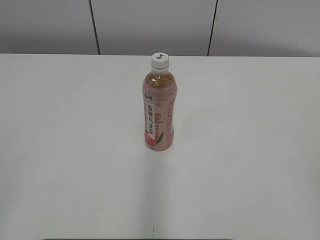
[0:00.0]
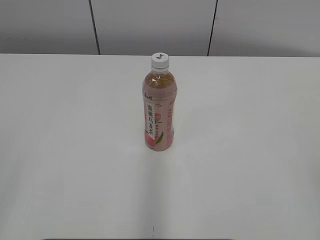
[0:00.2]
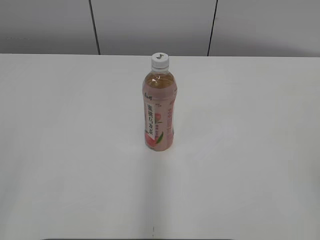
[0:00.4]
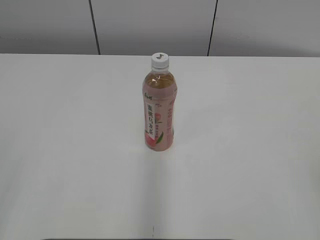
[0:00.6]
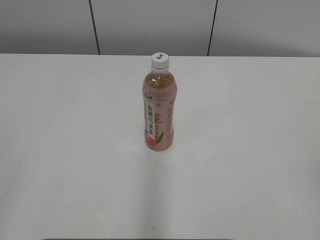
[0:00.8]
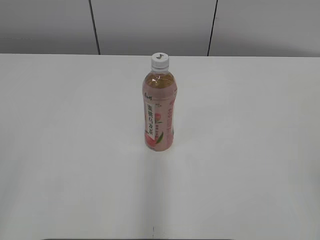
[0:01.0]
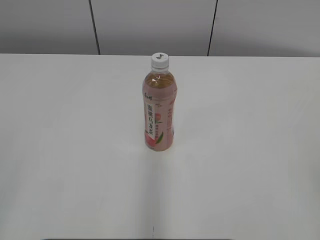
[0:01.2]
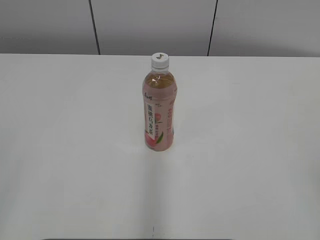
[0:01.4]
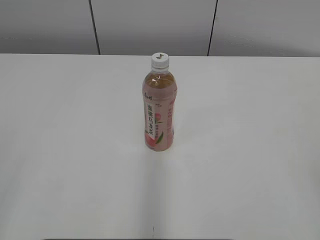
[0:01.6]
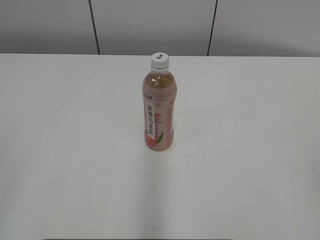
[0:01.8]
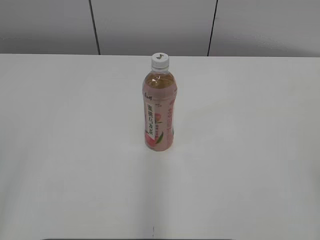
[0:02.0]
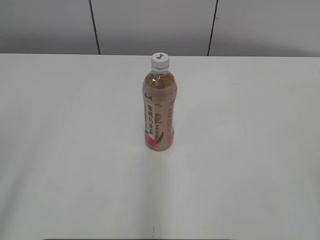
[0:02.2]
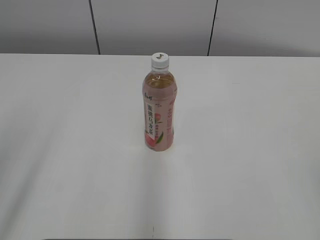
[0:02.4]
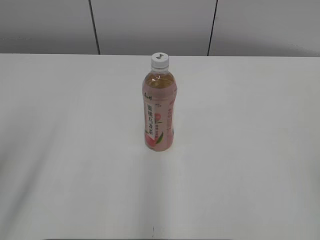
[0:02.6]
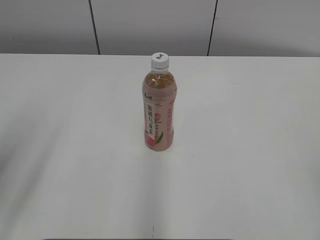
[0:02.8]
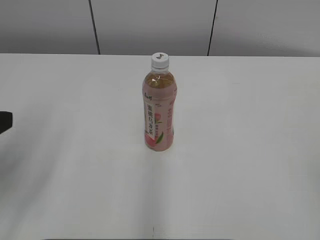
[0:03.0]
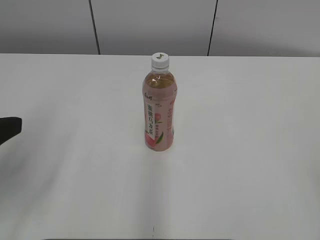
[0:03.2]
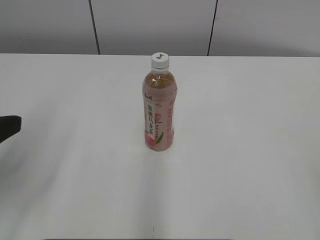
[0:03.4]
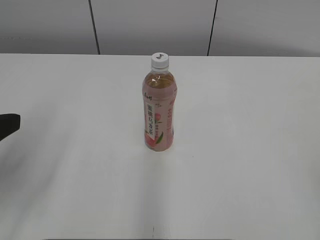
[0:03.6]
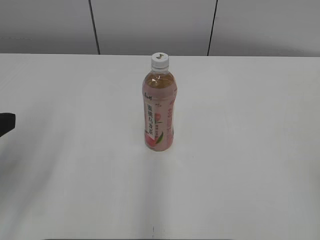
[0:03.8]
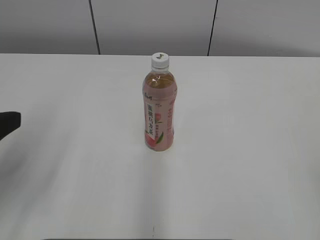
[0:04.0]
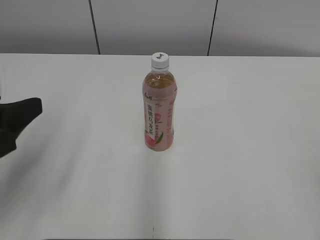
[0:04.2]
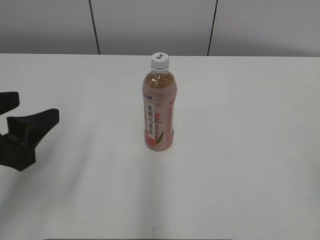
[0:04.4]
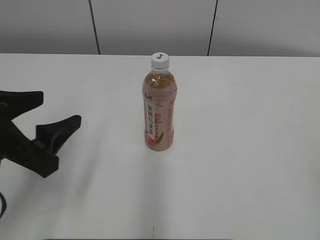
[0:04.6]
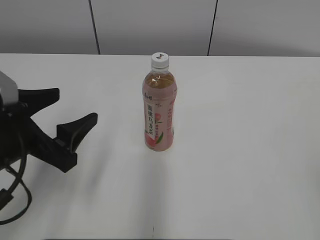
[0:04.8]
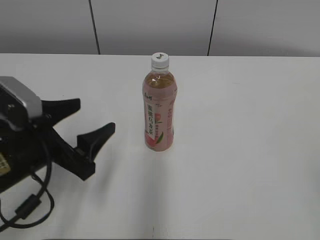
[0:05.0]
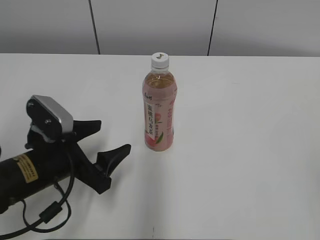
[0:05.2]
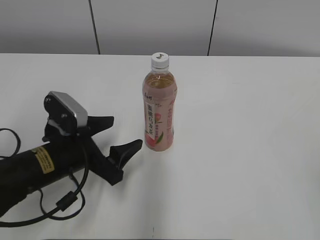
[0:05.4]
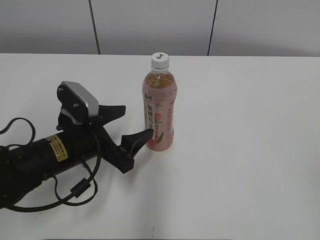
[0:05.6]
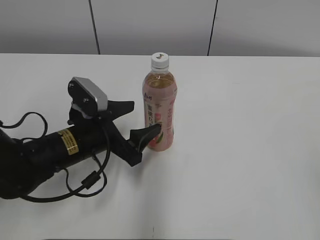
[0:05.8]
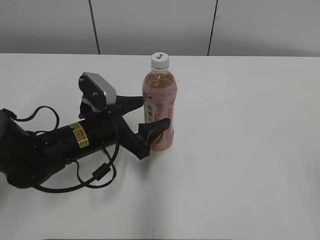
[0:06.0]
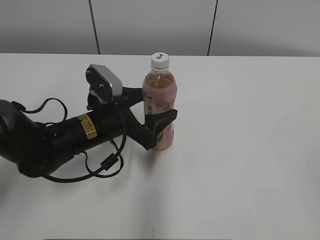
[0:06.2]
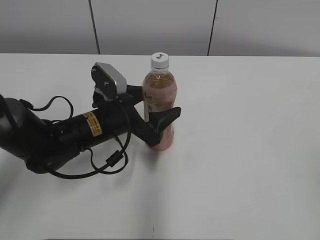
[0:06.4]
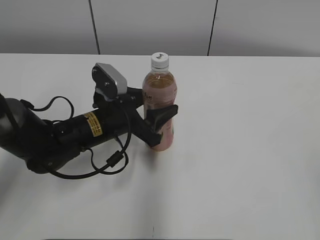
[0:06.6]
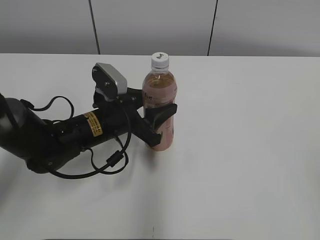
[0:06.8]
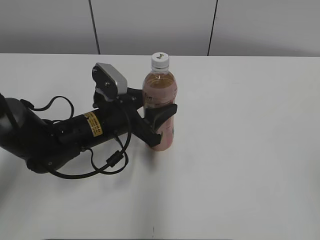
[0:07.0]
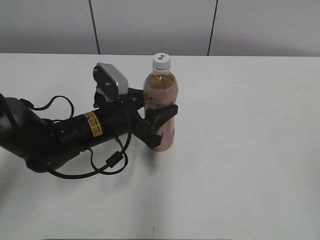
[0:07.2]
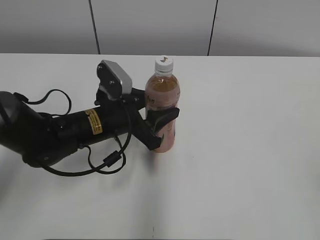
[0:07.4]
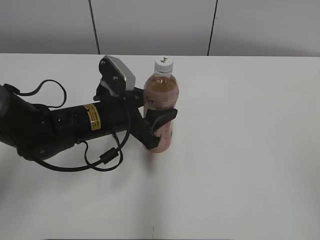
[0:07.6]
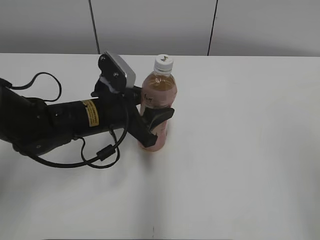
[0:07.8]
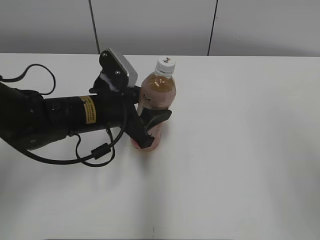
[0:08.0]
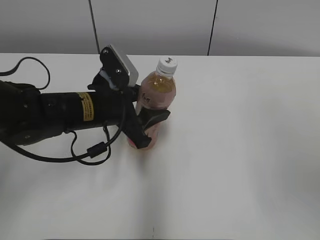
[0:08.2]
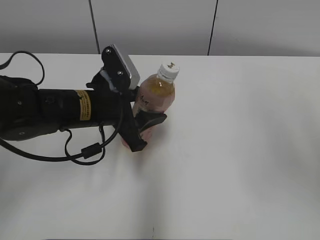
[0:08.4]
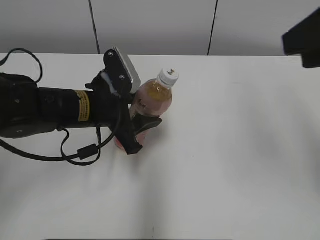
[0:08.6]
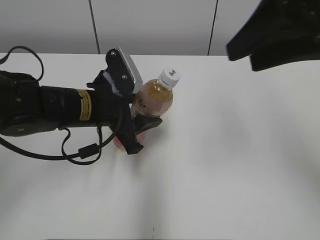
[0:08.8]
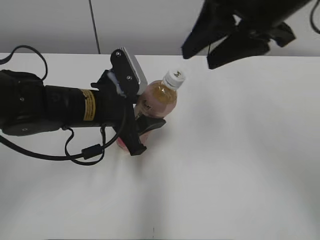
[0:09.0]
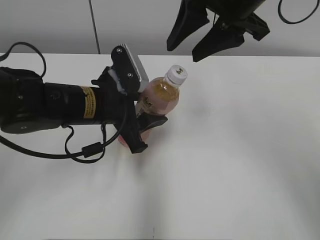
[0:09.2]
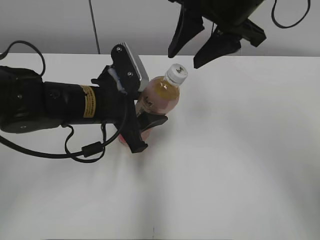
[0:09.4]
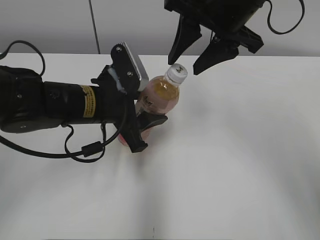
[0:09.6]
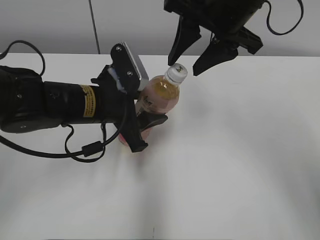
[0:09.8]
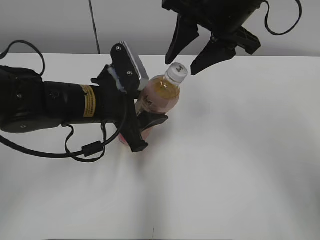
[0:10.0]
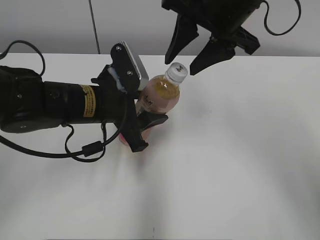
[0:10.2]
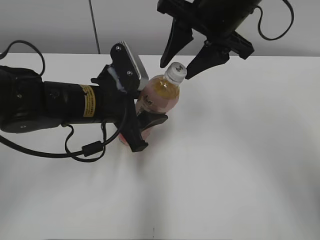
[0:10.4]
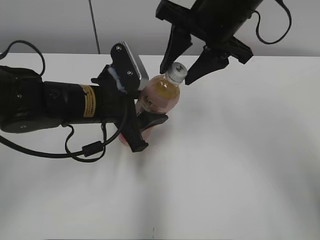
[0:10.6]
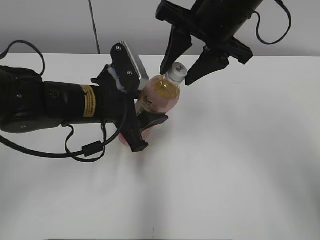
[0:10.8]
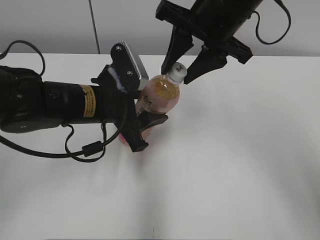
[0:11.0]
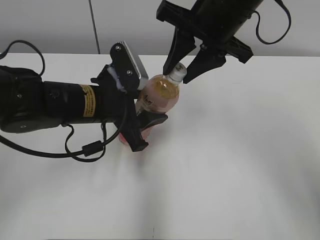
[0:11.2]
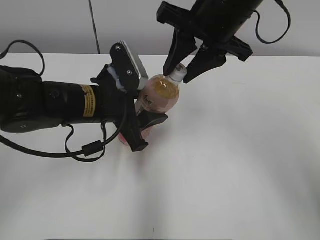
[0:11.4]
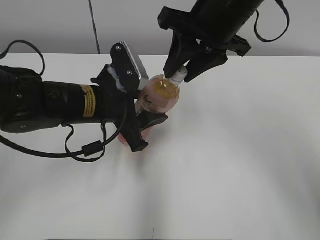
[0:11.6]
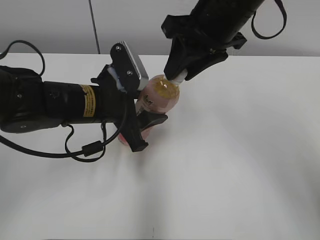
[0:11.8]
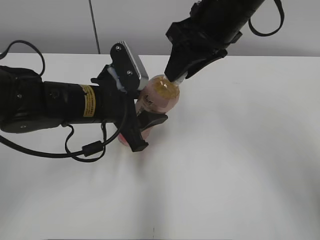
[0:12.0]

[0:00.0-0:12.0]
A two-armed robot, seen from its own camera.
Step, 0:00.0 to 0:06.8: Grasp the bottle and move it to the center of the table with the left gripper.
Step, 0:07.0 to 0:08.8: Lift the bottle and move it to the center of the table with the left gripper.
0:01.6 to 0:03.0: The left gripper travels forward by some 15 cm.
0:03.0 to 0:04.4: The left gripper moves about 5 cm.
0:04.4 to 0:06.0: The left gripper travels forward, downward and to the right by about 20 cm.
0:06.0 to 0:07.6: The left gripper closes up.
0:07.6 to 0:09.0: The right gripper goes roughly 30 cm forward and to the left.
0:09.0 to 0:10.4: The right gripper is displaced forward by roughly 5 cm.

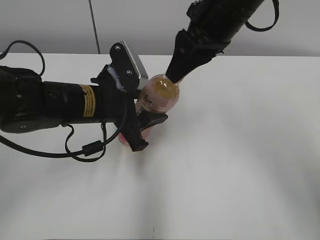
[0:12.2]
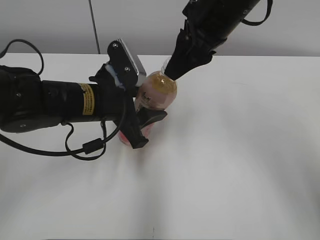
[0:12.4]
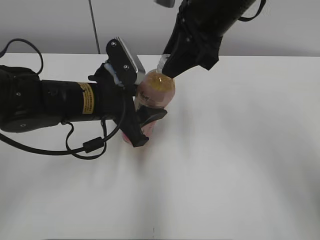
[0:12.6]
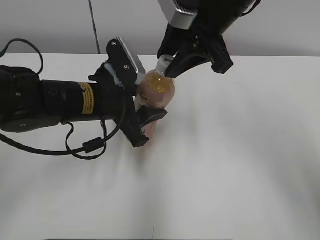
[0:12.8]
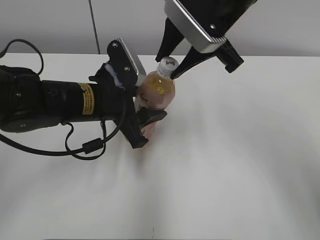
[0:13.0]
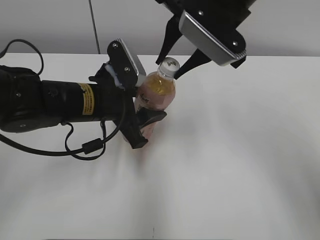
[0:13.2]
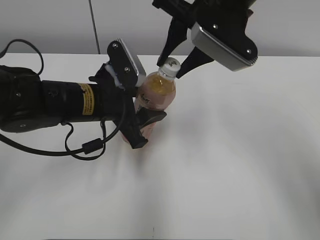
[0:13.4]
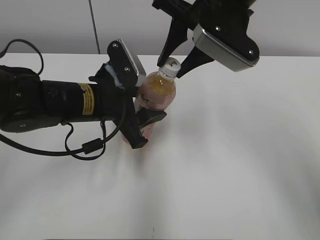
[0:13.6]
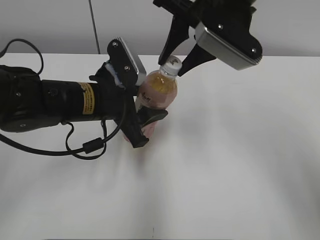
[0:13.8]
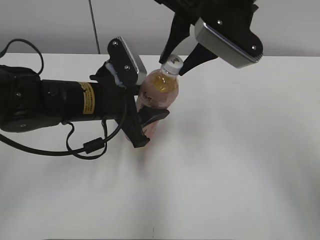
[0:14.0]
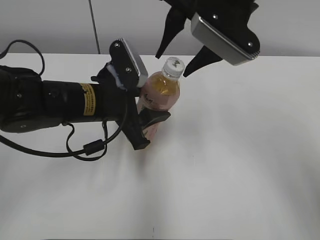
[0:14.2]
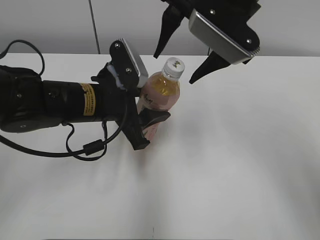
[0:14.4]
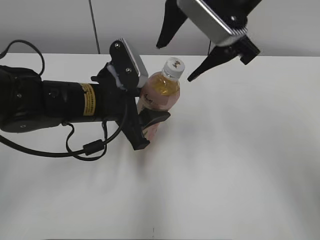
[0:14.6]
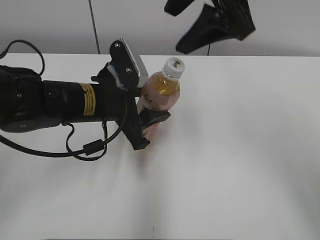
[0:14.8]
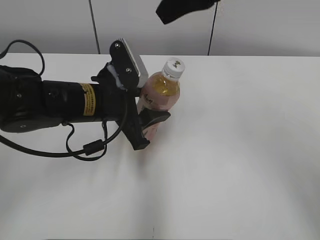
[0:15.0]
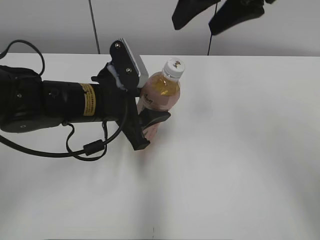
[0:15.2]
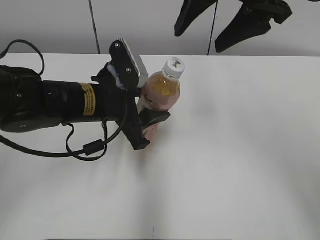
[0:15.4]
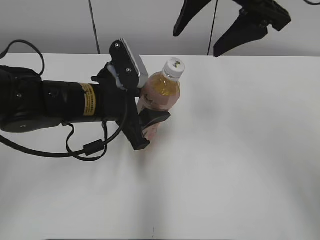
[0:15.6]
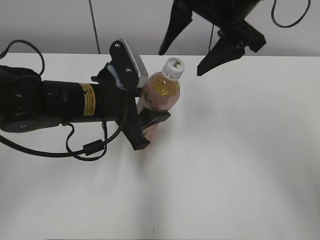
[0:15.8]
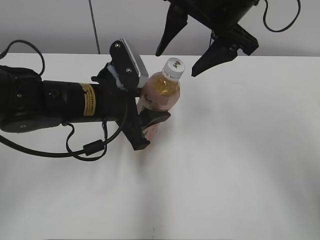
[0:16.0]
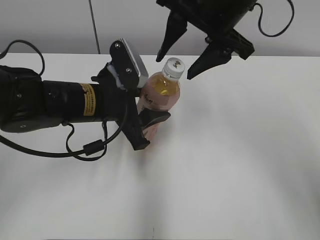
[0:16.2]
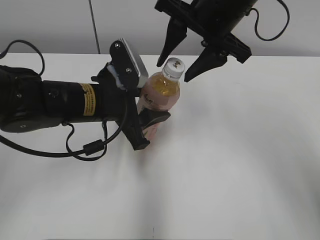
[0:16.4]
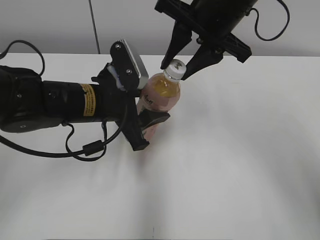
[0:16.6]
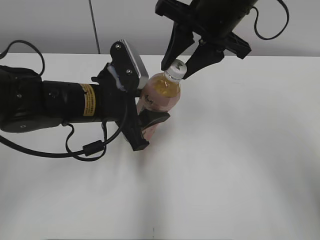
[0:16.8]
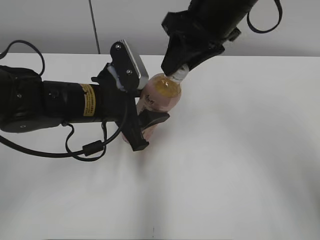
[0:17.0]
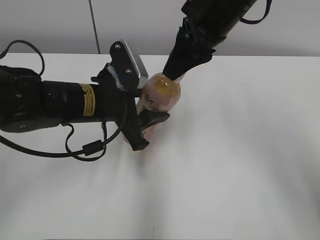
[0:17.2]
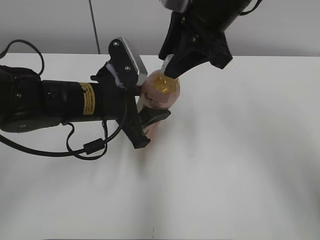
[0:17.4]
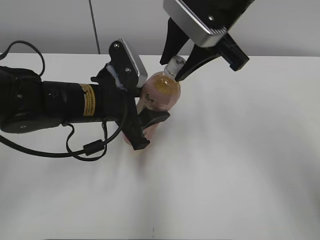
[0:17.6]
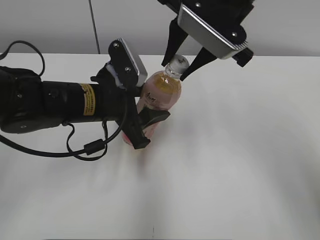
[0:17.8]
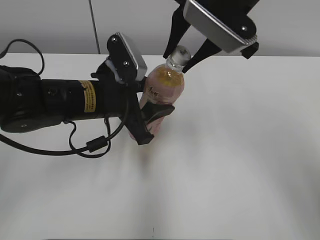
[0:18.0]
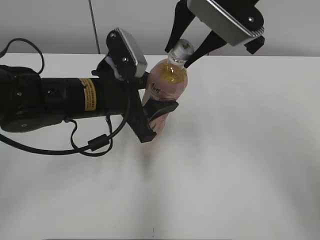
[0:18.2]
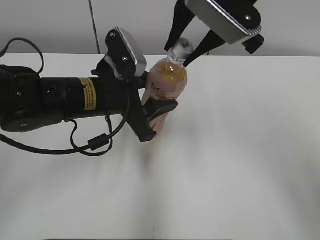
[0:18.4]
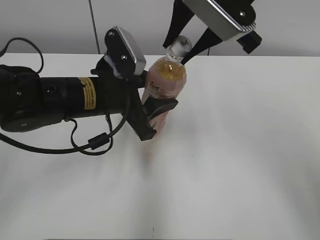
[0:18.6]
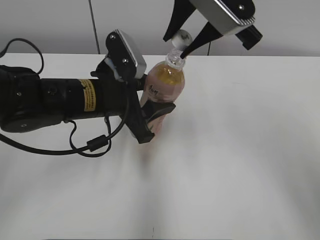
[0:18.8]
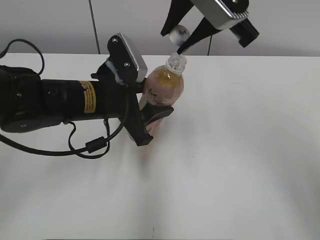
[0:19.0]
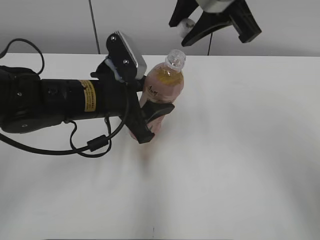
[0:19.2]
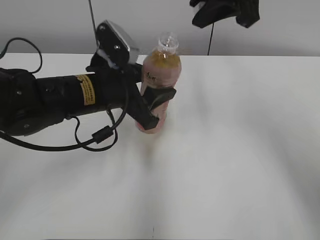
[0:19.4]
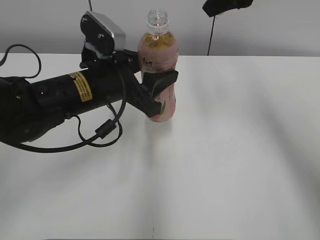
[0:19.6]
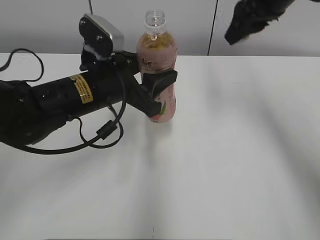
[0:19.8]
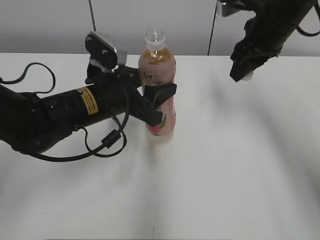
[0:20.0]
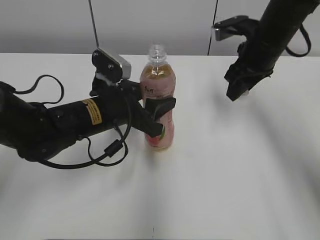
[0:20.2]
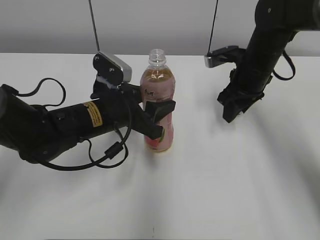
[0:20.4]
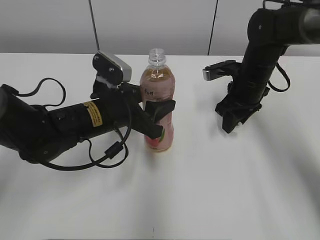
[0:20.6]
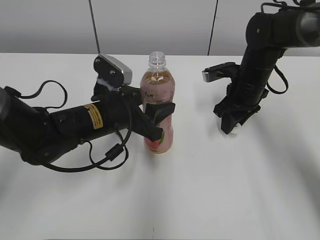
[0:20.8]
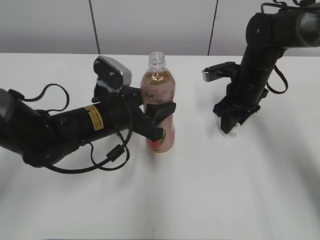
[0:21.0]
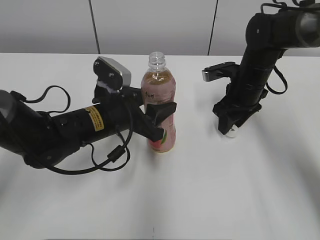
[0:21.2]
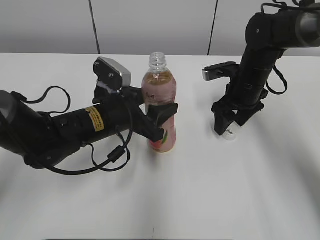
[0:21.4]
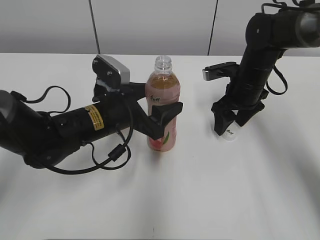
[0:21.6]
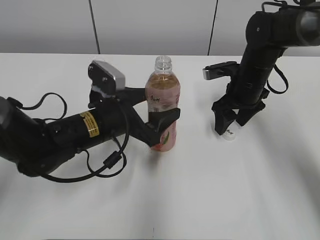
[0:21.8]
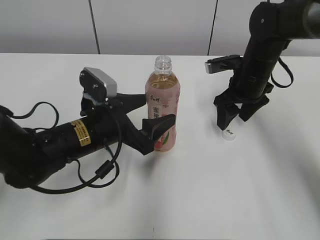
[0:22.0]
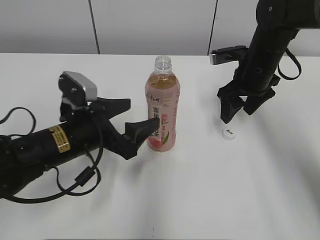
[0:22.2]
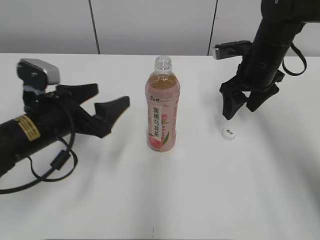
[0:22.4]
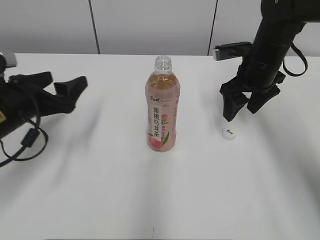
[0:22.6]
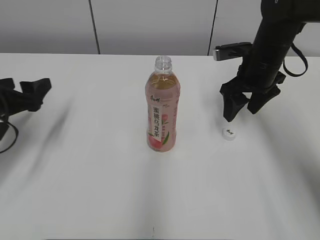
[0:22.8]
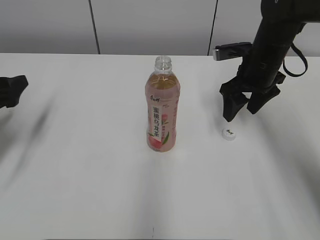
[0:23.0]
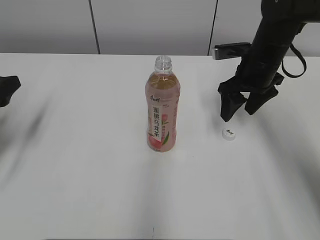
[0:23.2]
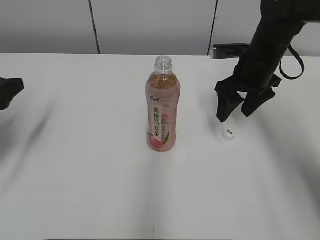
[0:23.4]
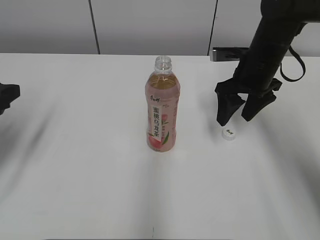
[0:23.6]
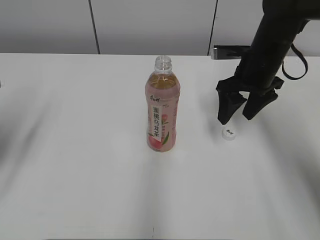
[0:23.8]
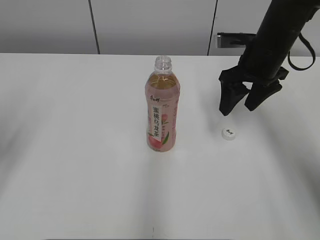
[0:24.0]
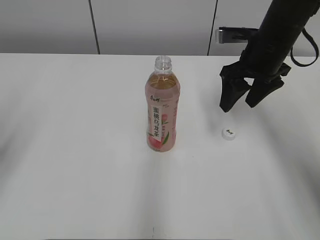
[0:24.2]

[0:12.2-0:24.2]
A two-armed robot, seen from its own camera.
Step, 0:12.2 to 0:18.6: Unscrew the bottle cap with the right gripper while holding the bottle with the left gripper.
Step, 0:18.8 to 0:21.2: Place the bottle cap on the table with the right gripper.
0:13.8 to 0:15.2: The right gripper shifts some 5 cm upward, and opens its fingers.
0:15.2 to 0:16.6: The right gripper moves downward, approximately 5 cm, and closes its fingers.
0:18.2 to 0:19.8: The right gripper moves to the right and forward, some 10 cm.
0:19.8 to 0:21.2: The left gripper goes some 5 cm downward; the right gripper heads downward, covering about 20 cm, and opens up.
0:21.2 to 0:22.6: The right gripper heads upward, covering approximately 5 cm, and opens, while the left gripper goes roughly 15 cm to the left, and opens.
0:22.6 to 0:24.2: The left gripper goes some 15 cm to the left, upward and backward, and closes its fingers.
